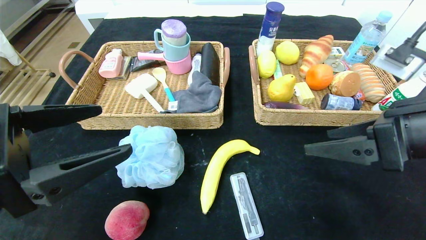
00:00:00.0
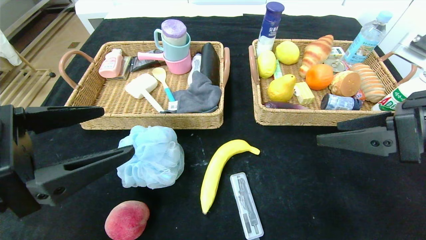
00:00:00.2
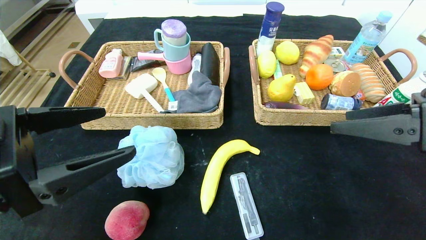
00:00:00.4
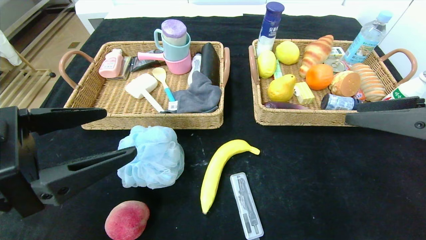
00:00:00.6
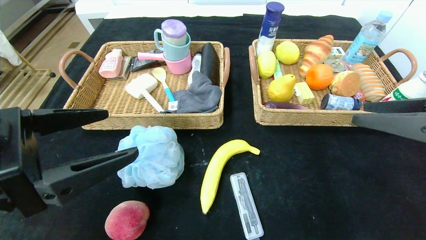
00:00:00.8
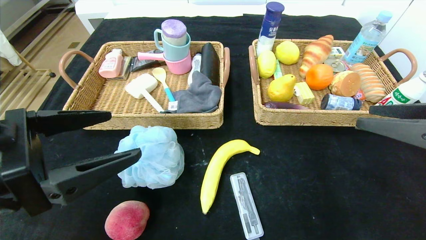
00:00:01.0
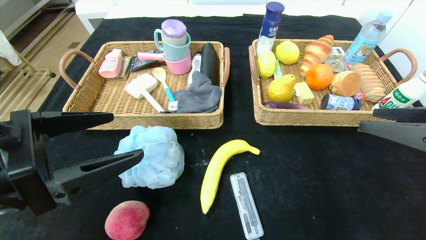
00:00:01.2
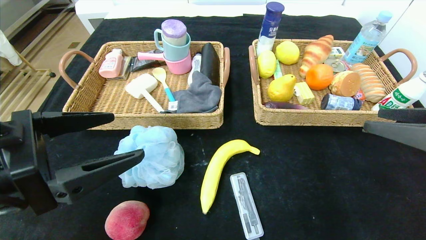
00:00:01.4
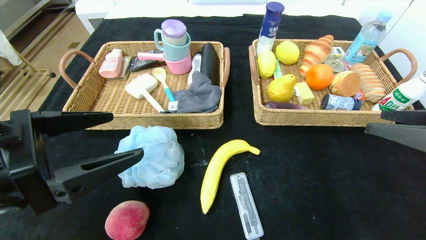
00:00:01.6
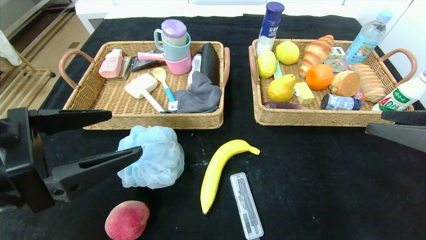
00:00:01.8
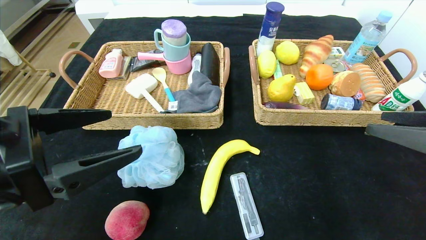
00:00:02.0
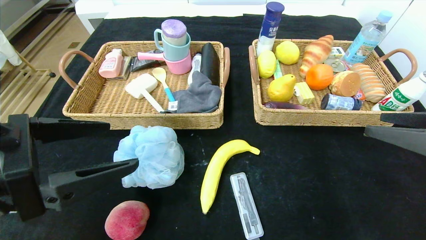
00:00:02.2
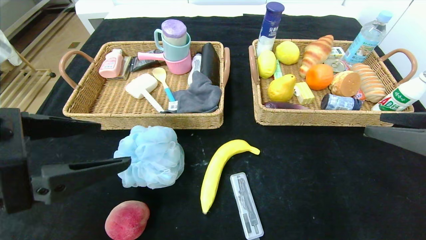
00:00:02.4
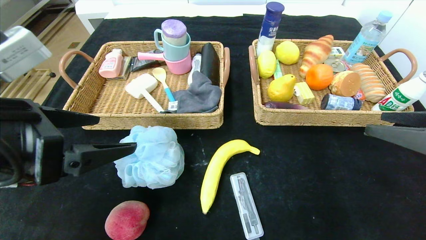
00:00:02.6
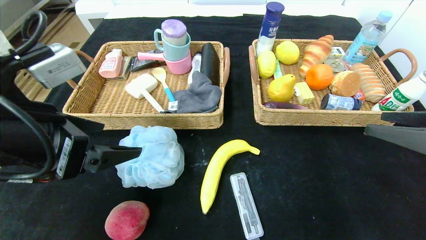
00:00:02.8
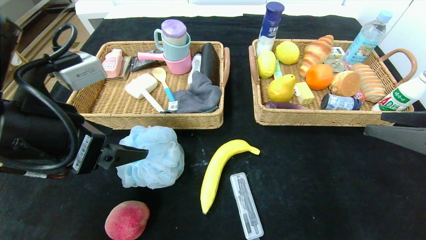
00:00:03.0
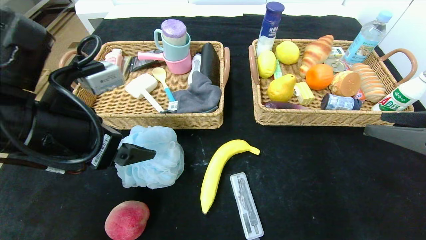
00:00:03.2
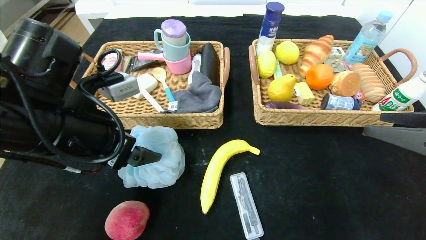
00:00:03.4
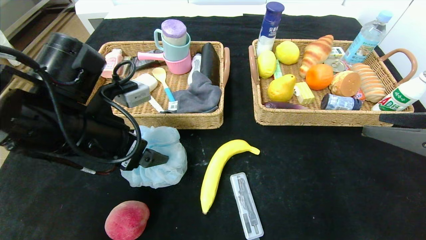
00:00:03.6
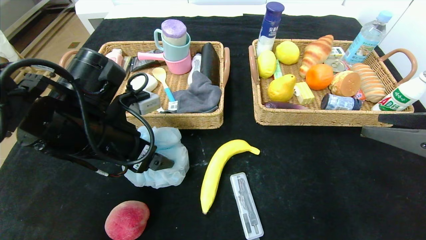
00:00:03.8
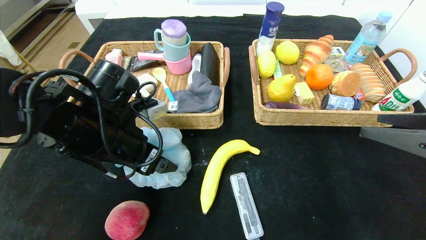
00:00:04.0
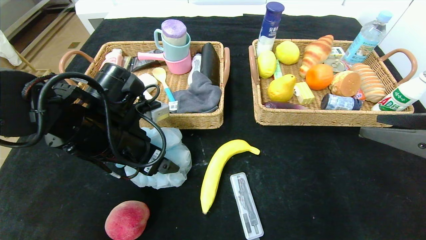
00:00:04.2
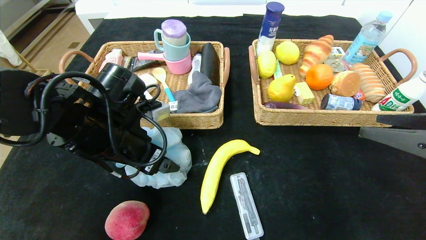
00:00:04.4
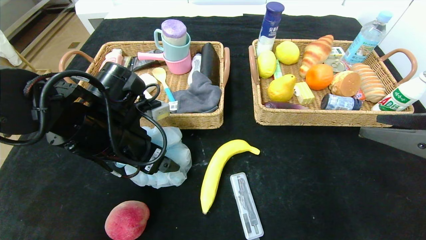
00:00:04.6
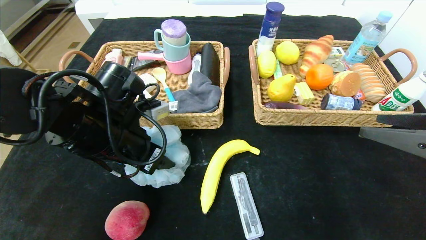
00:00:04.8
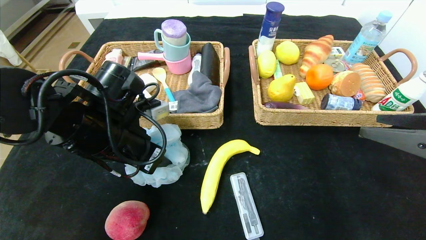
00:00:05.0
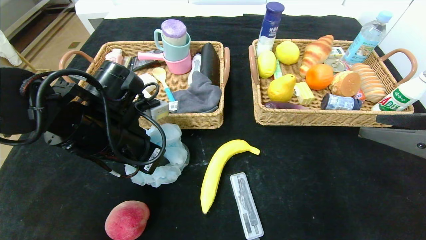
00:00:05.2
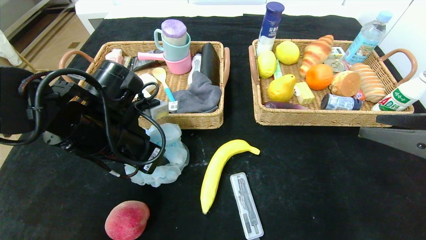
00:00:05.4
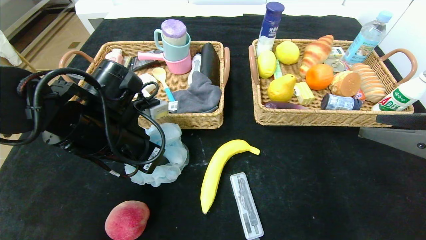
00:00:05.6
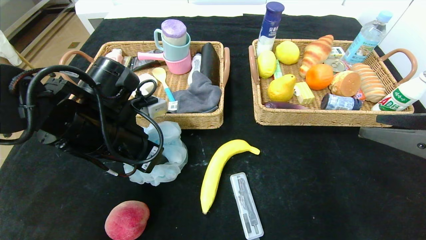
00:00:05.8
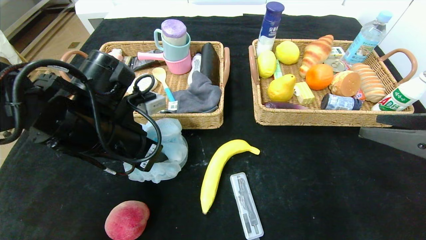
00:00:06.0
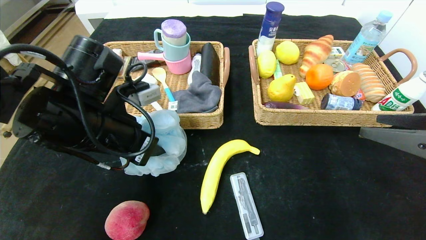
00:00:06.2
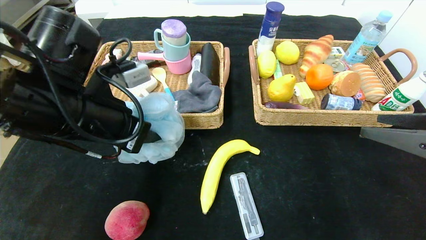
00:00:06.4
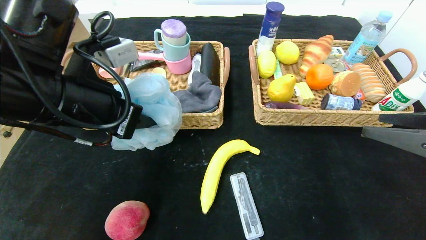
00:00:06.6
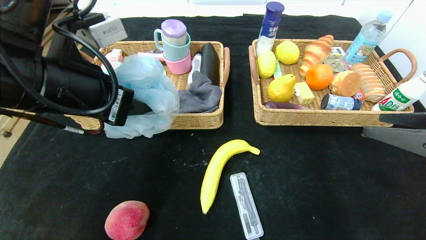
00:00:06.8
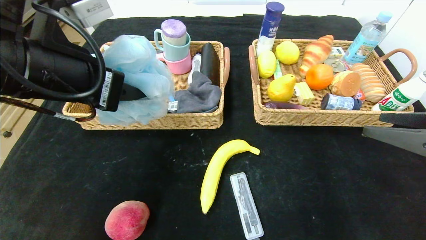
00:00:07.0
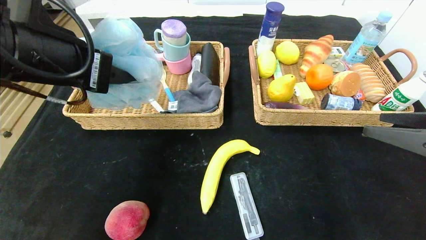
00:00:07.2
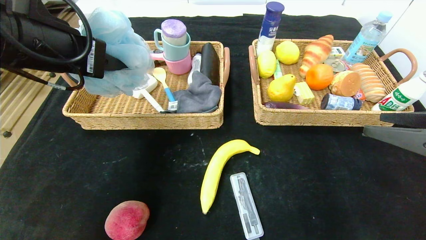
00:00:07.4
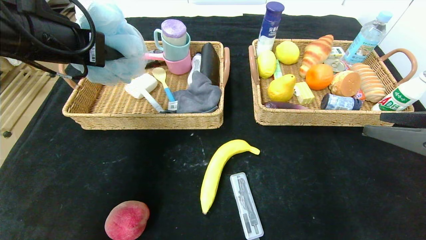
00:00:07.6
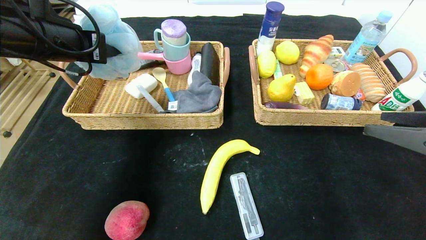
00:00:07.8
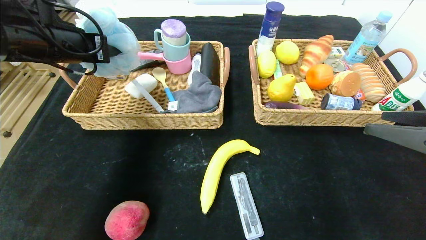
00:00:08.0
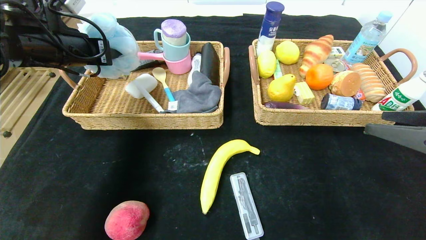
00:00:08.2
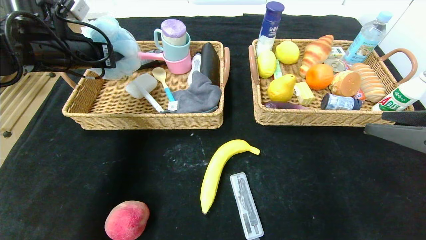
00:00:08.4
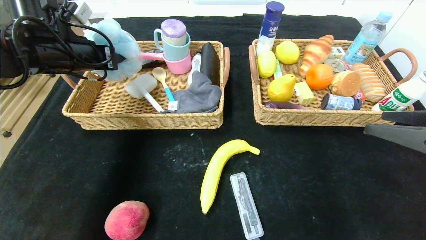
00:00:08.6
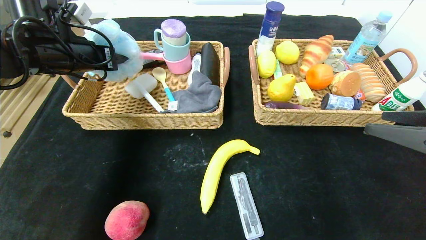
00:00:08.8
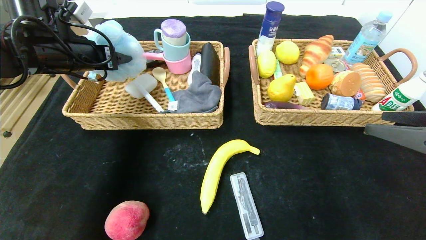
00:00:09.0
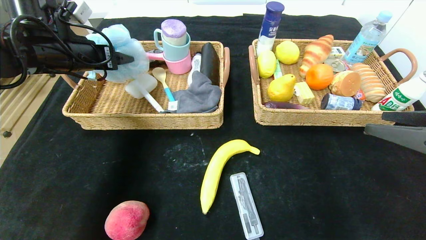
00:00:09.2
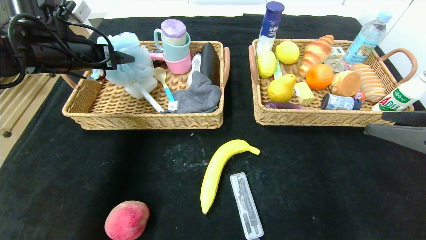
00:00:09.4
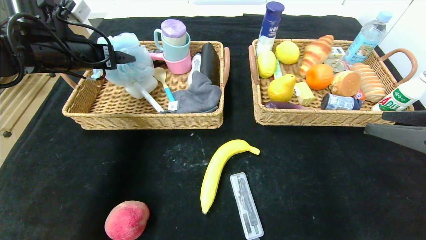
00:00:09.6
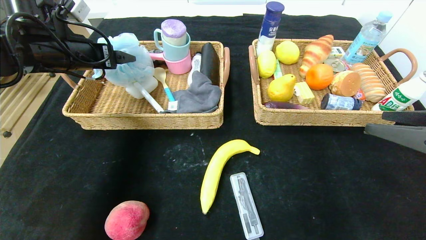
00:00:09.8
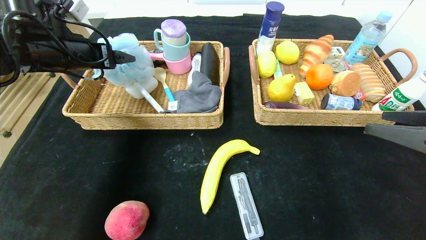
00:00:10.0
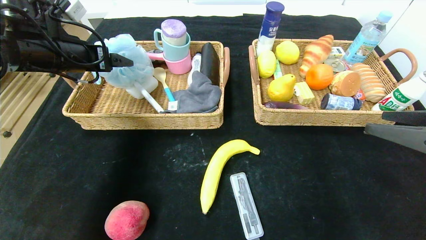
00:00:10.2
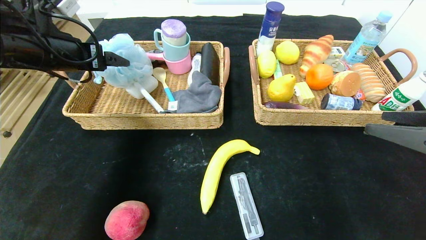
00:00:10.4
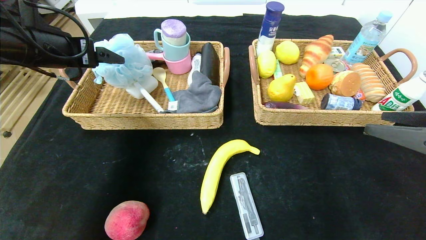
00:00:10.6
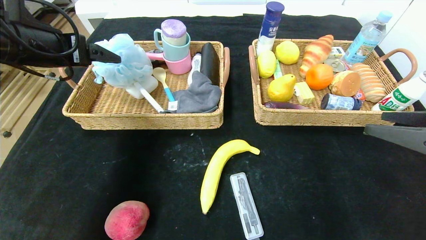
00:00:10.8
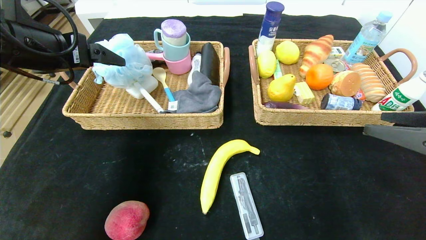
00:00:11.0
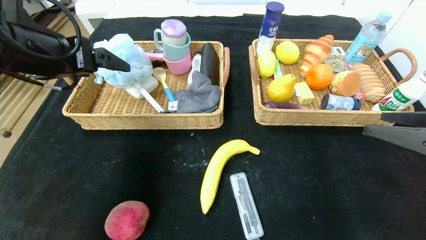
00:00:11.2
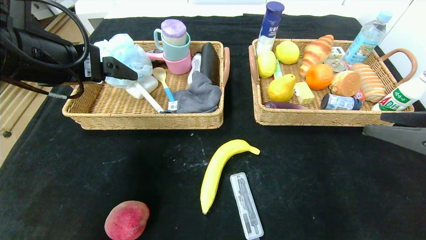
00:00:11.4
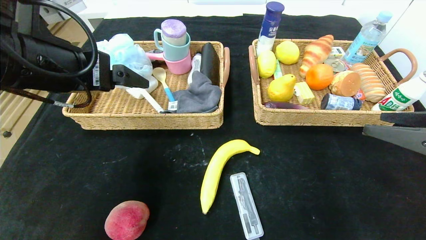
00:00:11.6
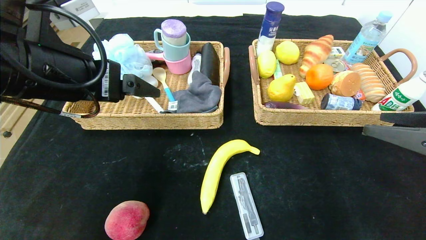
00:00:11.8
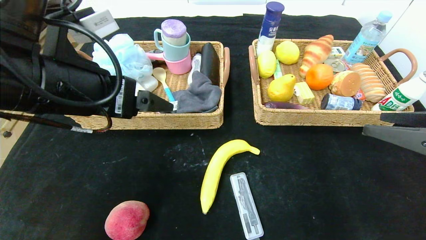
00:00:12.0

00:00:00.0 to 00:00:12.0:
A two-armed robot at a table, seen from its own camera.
Step, 00:00:00.0 to 00:00:10.0: Grasp the bath ball and put it in the left basket.
00:00:00.0 to 00:00:01.6: The right gripper goes about 10 cm to the right.
00:00:01.6 to 00:00:03.0: The left gripper shifts roughly 5 cm forward.
00:00:03.0 to 00:00:04.4: The left gripper heads forward and downward, covering approximately 10 cm.
00:00:04.4 to 00:00:06.0: The left gripper closes.
00:00:06.0 to 00:00:07.6: The left gripper heads upward and to the left, covering some 15 cm.
00:00:07.6 to 00:00:09.0: The left gripper moves forward and to the left, about 10 cm, and opens.
00:00:09.0 to 00:00:10.4: The left gripper opens its fingers.
00:00:10.4 to 00:00:12.0: The left gripper travels backward and to the right by about 15 cm.

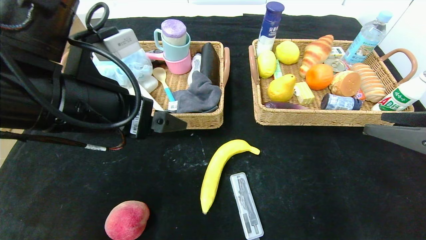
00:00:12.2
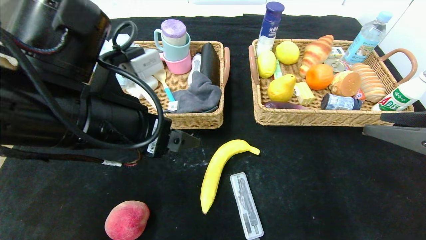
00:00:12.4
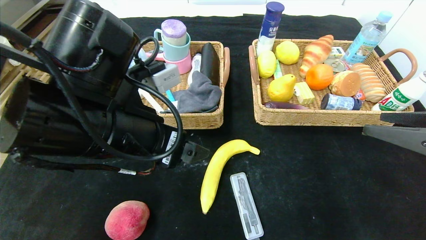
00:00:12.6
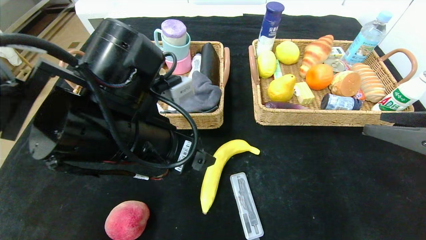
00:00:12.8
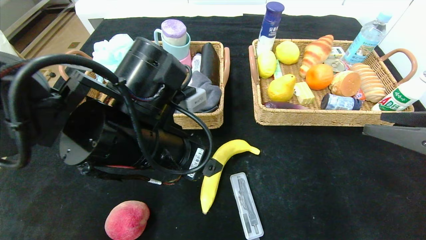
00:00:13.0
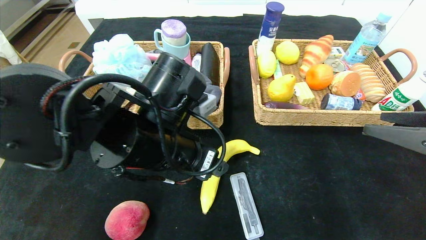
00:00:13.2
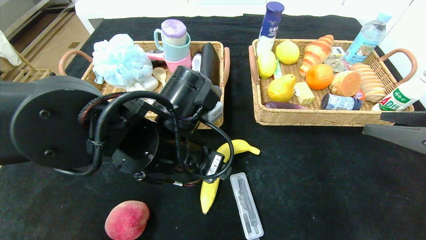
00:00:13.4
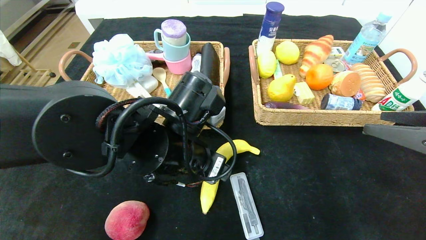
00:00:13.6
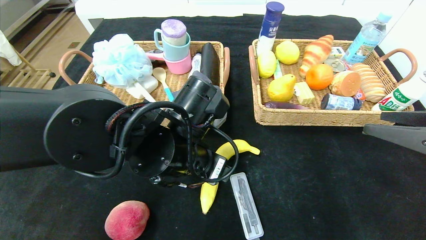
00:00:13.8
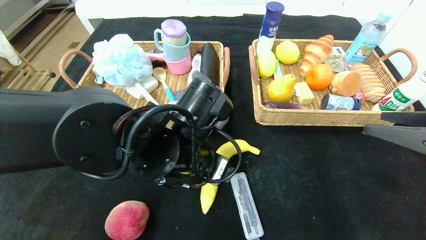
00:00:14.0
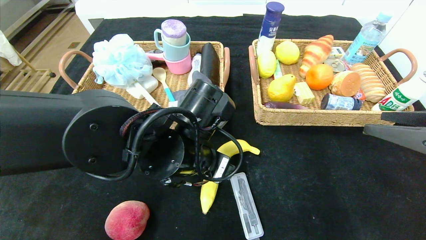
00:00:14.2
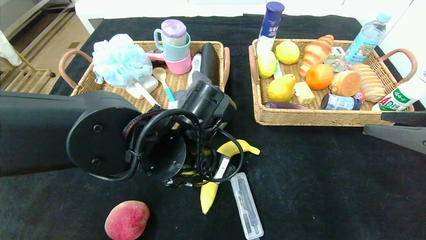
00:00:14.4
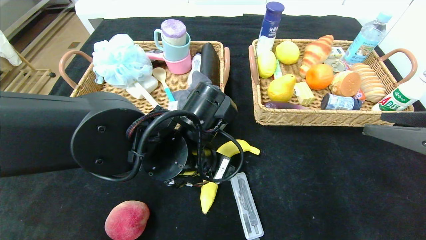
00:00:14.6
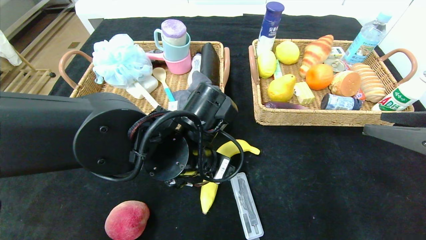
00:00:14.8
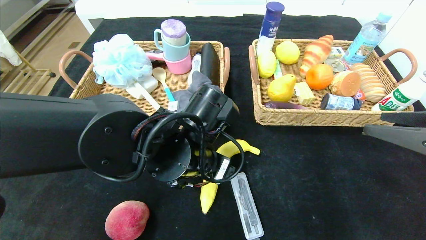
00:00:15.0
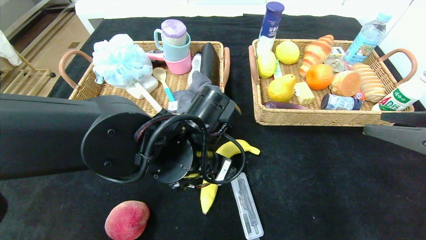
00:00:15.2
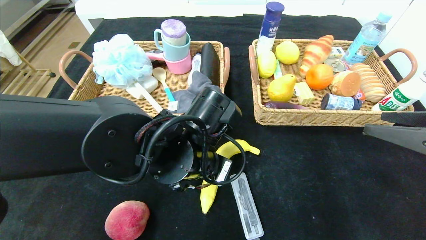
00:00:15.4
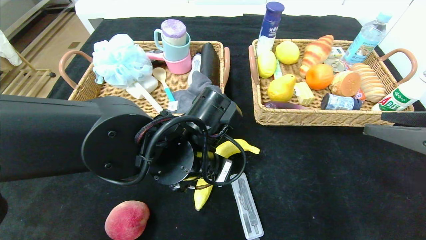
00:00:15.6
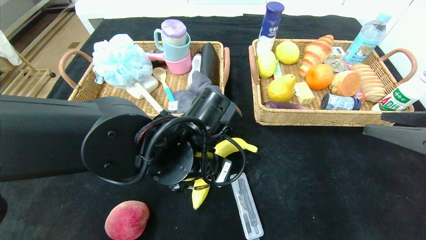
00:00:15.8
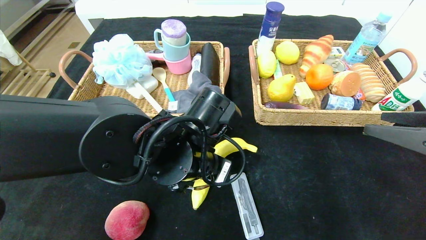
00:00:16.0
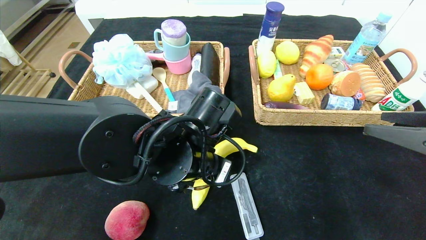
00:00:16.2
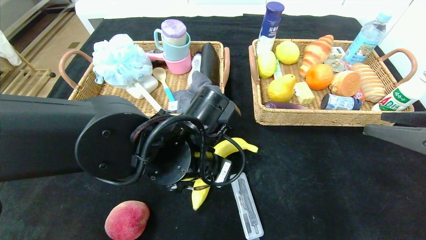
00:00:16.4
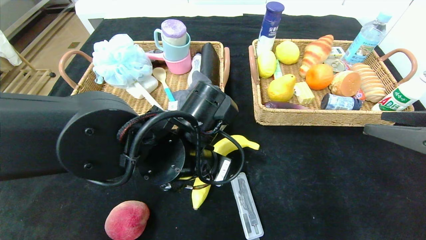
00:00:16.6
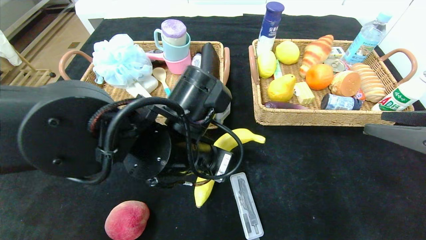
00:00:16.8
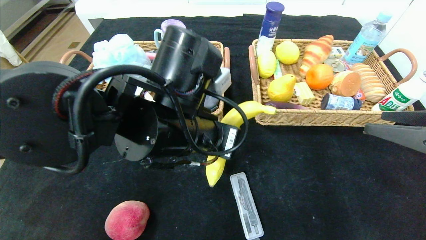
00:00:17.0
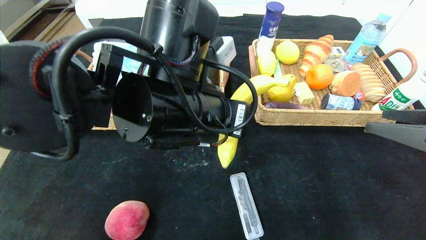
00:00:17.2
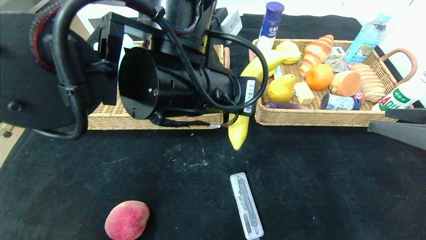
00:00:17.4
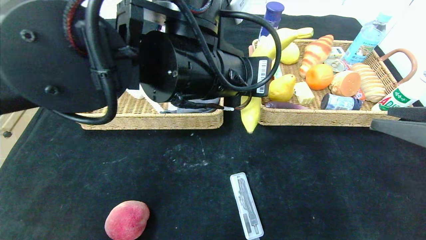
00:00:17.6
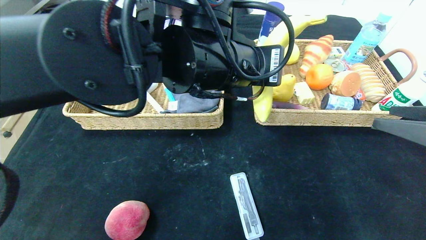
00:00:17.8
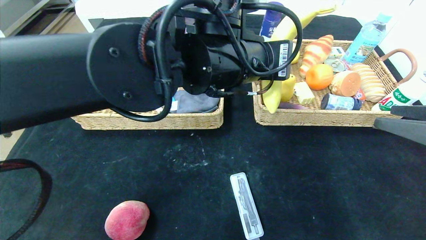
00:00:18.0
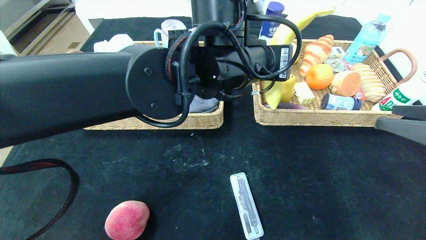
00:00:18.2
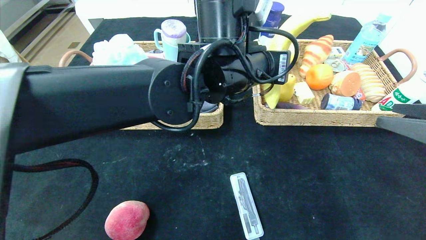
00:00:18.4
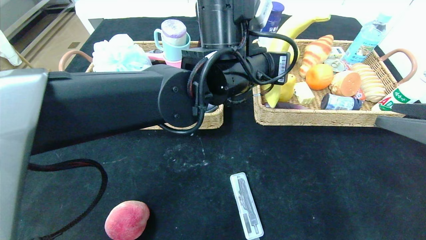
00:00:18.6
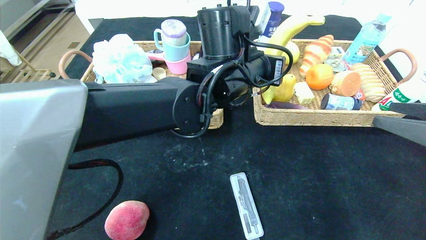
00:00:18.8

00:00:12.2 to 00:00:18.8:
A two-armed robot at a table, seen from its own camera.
00:00:12.2 to 00:00:13.8: The left gripper heads to the right and downward, covering some 15 cm.
00:00:13.8 to 00:00:15.4: The left gripper closes.
00:00:15.4 to 00:00:17.2: The left gripper is displaced upward by some 10 cm, and closes.
00:00:17.2 to 00:00:18.8: The left gripper moves forward and to the right, some 10 cm.
